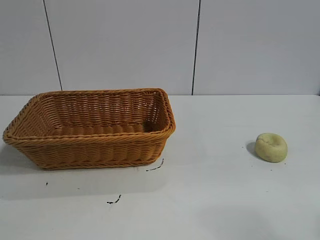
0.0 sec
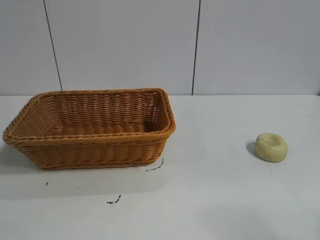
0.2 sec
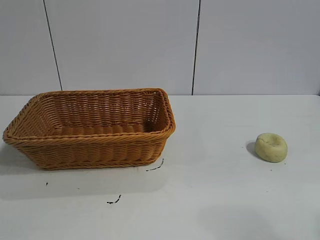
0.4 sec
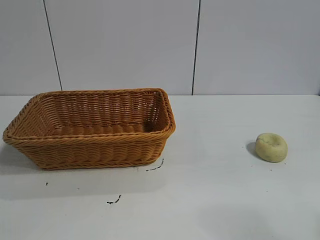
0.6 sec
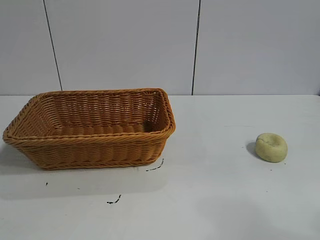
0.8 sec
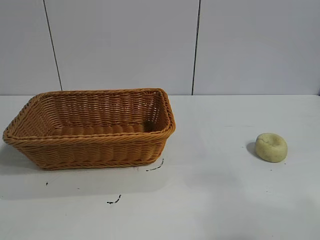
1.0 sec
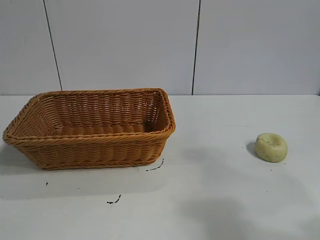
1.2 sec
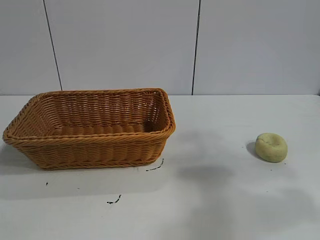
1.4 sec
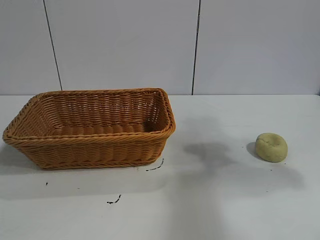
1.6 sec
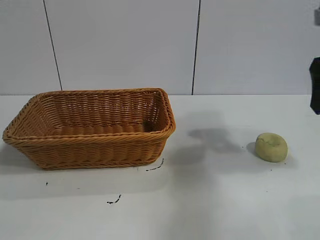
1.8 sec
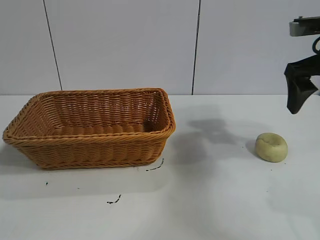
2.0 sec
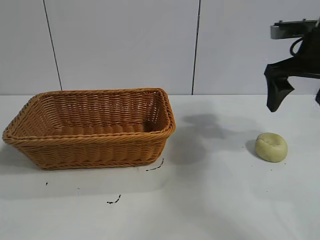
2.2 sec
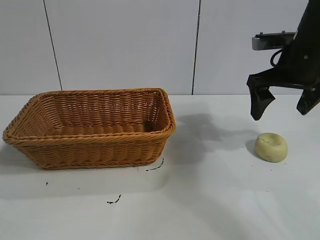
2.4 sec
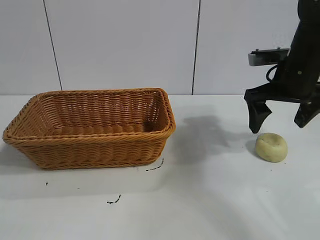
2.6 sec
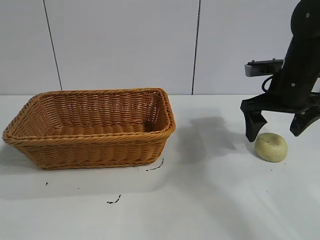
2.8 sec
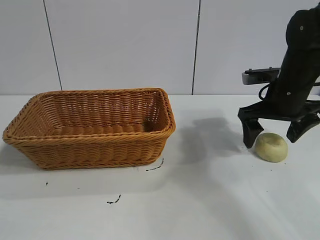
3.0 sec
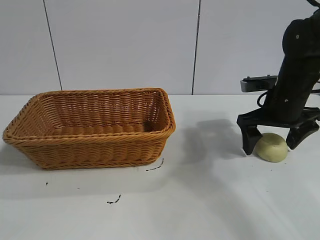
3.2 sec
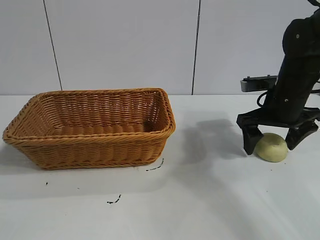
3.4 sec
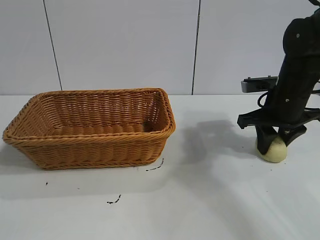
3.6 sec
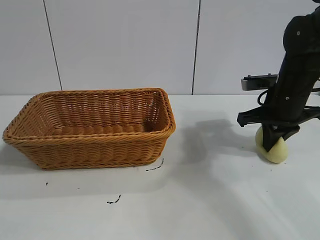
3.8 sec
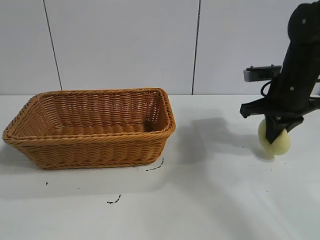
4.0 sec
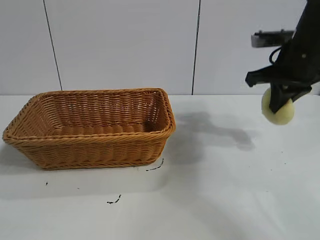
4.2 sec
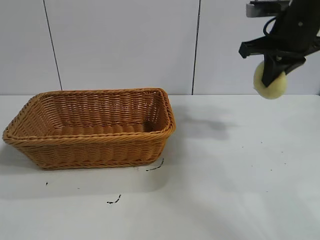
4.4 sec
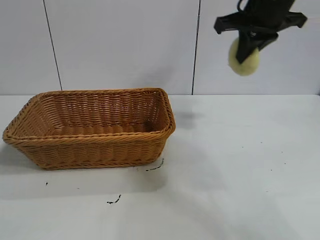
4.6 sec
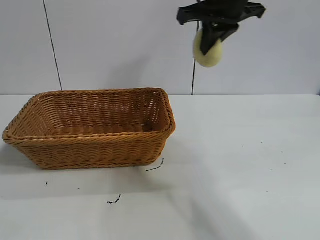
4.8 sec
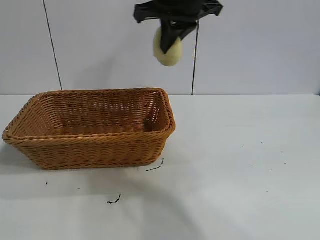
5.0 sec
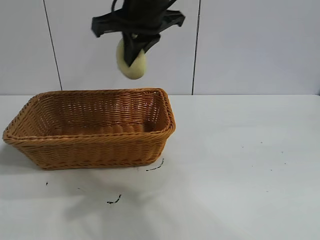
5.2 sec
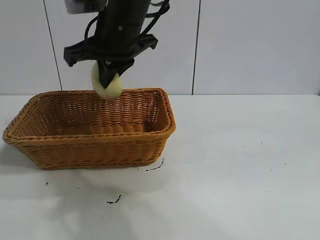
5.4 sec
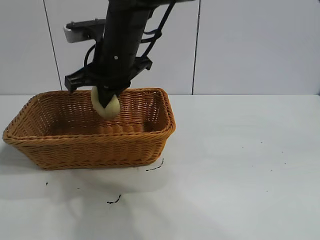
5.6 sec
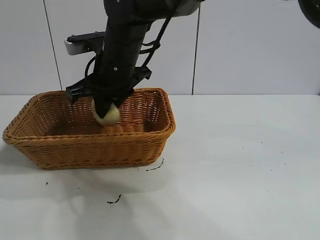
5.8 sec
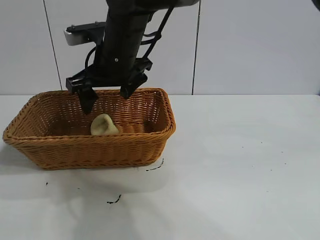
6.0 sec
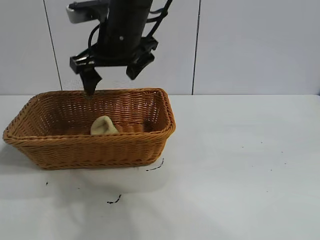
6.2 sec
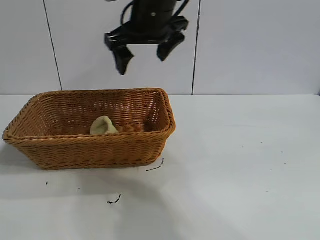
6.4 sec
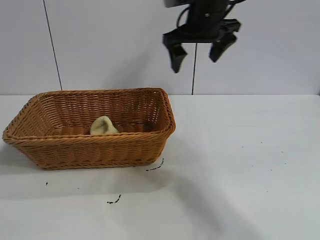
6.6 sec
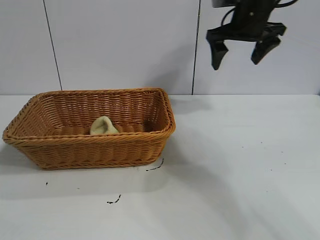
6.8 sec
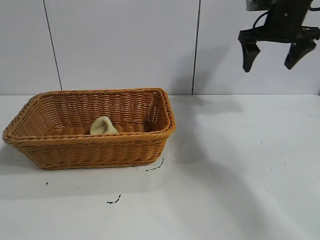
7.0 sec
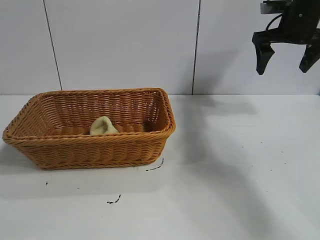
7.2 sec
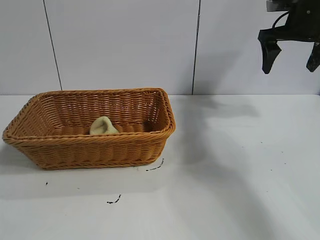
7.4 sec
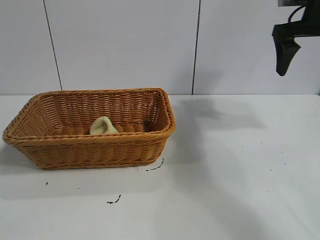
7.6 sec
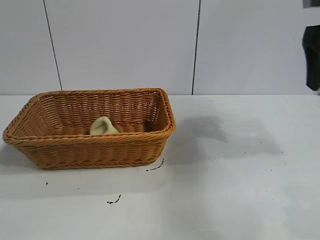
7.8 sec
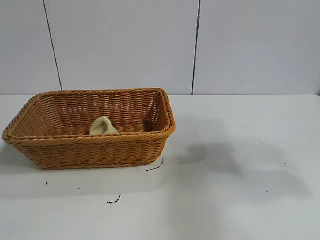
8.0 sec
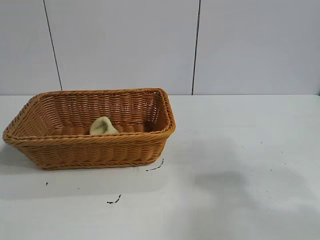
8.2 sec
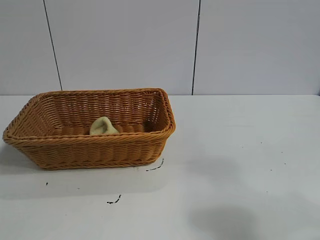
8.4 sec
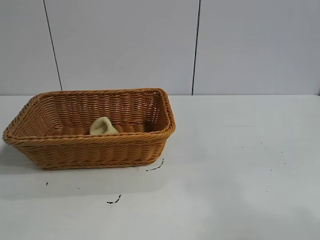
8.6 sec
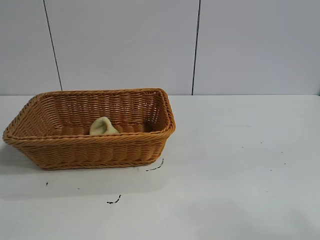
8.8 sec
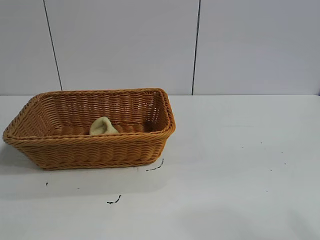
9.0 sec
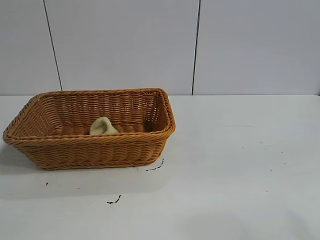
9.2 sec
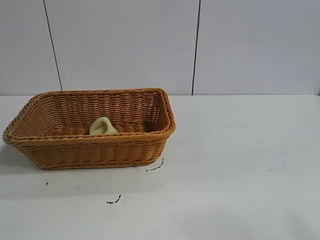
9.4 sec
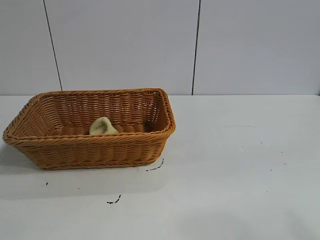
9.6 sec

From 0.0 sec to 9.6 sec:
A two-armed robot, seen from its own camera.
Task of the whole recording: pick up the egg yolk pastry and put it into the basket.
Step, from 0.8 sec to 3.8 sec: Grasp egg yolk pastry with right gripper.
Step, from 4.0 sec to 6.0 sec: Place the egg yolk pastry in the basket with right gripper.
